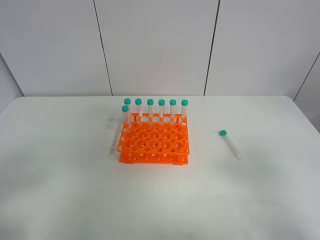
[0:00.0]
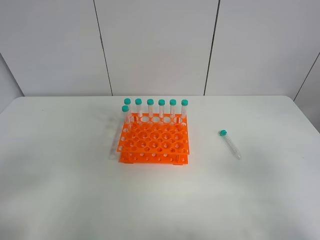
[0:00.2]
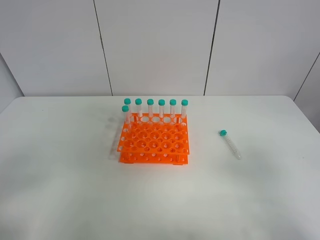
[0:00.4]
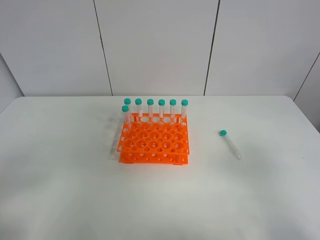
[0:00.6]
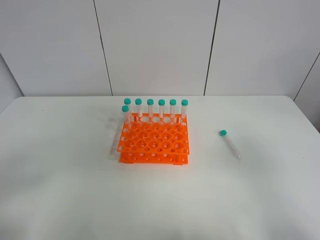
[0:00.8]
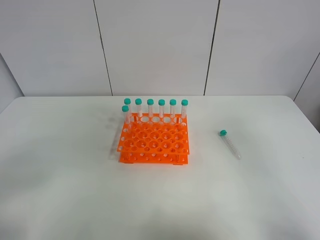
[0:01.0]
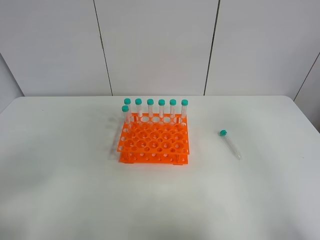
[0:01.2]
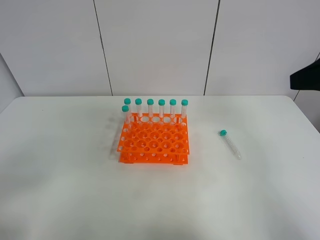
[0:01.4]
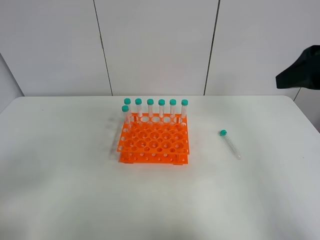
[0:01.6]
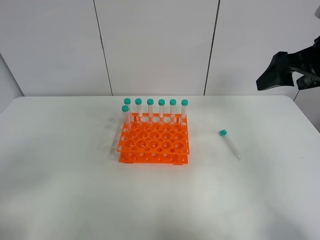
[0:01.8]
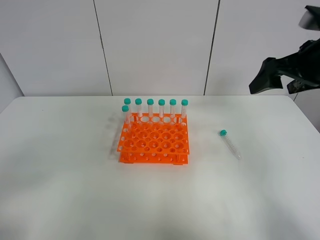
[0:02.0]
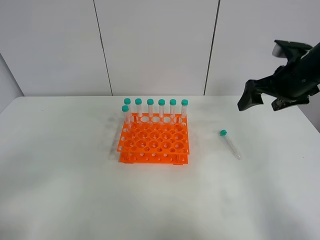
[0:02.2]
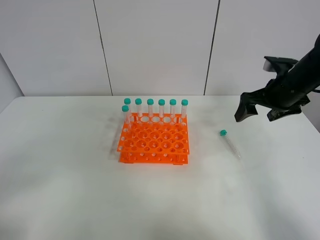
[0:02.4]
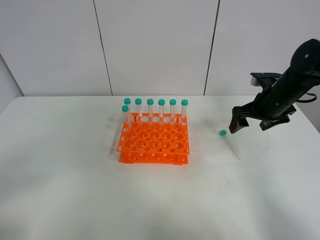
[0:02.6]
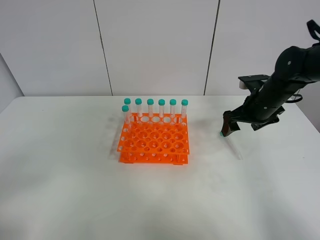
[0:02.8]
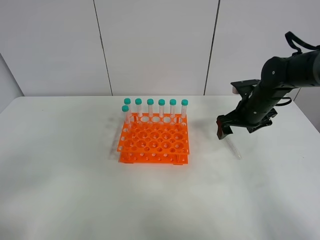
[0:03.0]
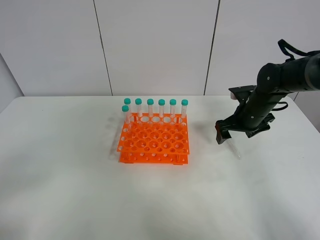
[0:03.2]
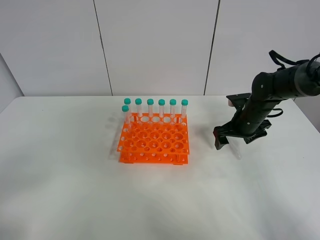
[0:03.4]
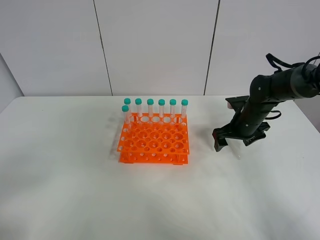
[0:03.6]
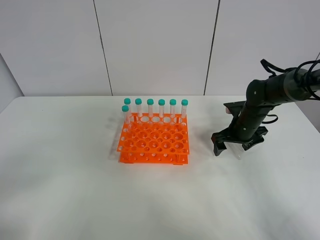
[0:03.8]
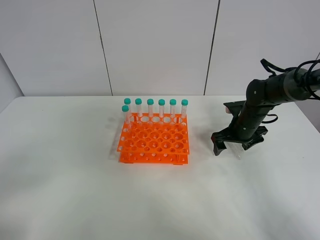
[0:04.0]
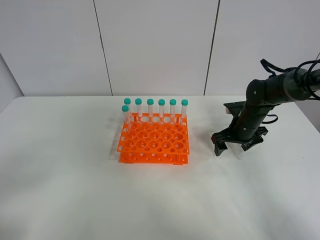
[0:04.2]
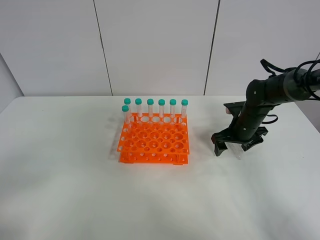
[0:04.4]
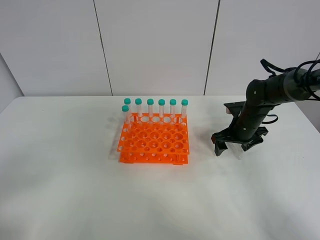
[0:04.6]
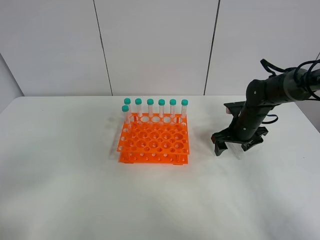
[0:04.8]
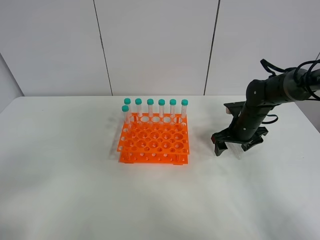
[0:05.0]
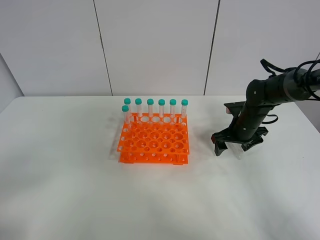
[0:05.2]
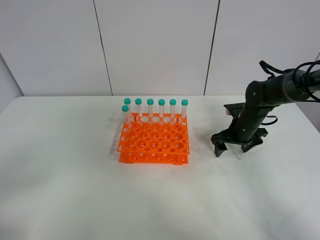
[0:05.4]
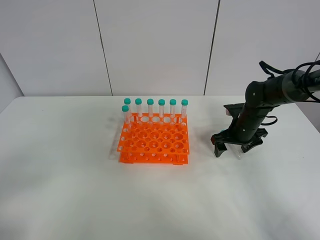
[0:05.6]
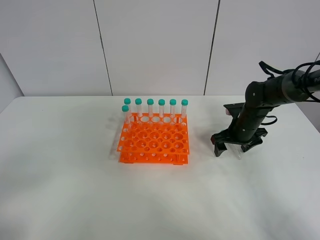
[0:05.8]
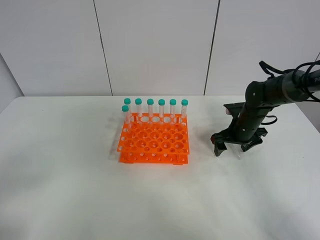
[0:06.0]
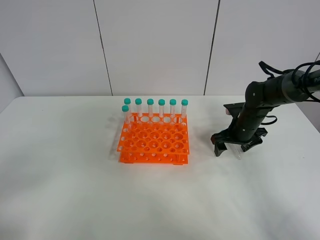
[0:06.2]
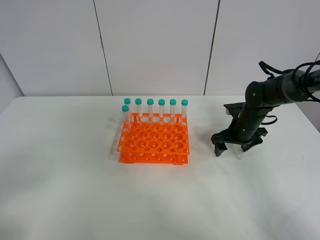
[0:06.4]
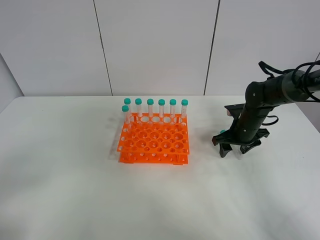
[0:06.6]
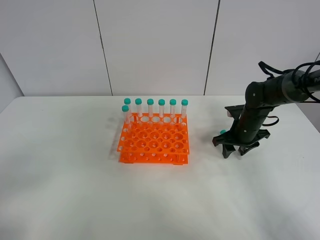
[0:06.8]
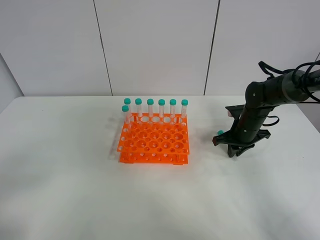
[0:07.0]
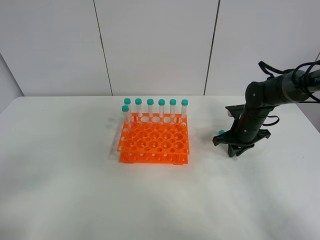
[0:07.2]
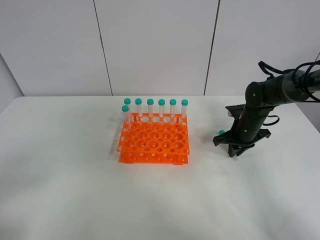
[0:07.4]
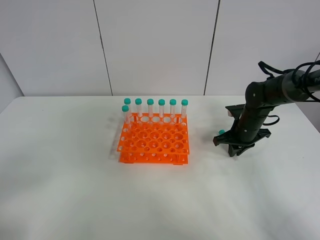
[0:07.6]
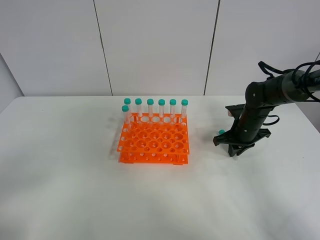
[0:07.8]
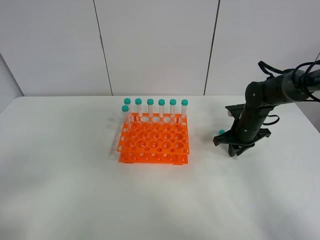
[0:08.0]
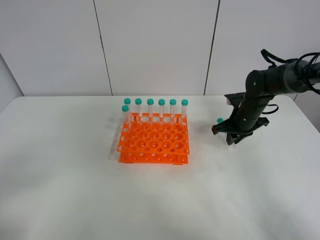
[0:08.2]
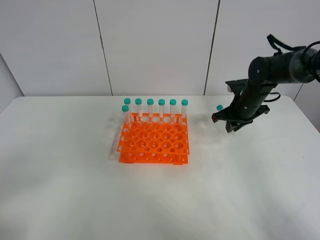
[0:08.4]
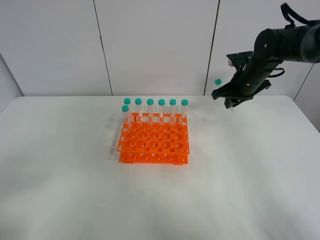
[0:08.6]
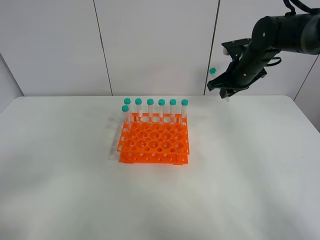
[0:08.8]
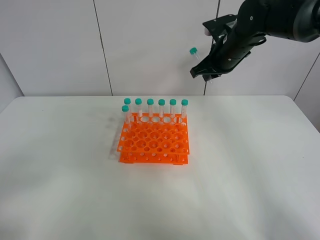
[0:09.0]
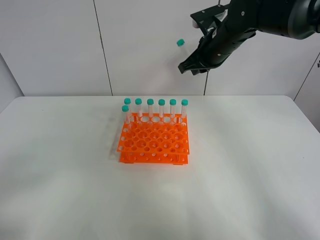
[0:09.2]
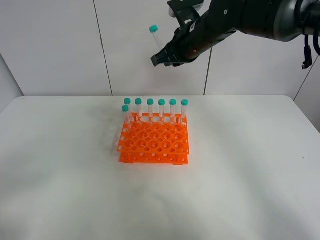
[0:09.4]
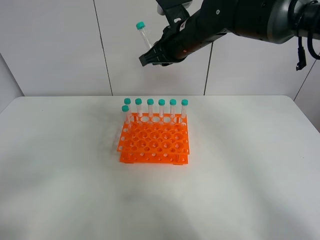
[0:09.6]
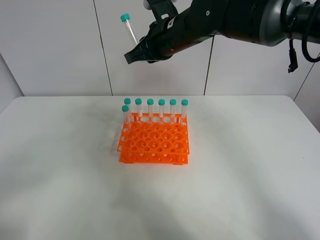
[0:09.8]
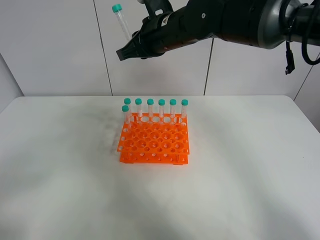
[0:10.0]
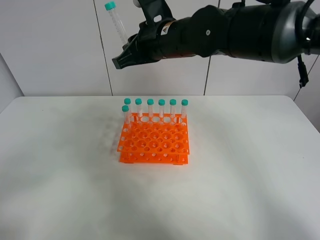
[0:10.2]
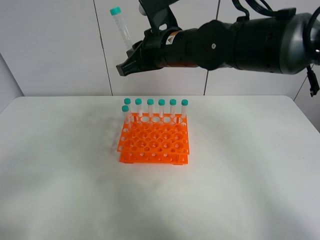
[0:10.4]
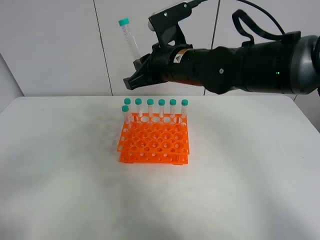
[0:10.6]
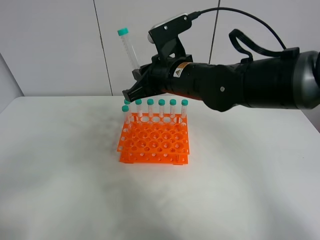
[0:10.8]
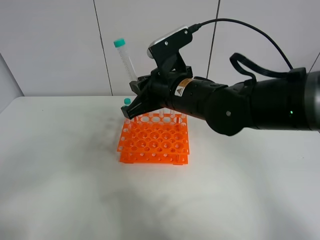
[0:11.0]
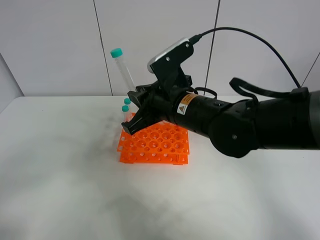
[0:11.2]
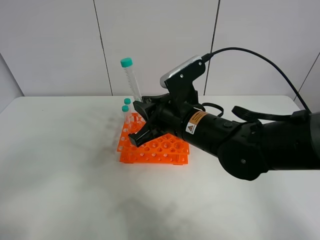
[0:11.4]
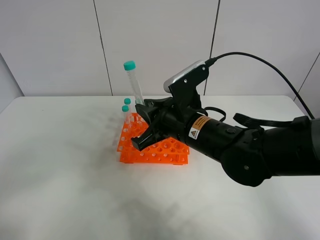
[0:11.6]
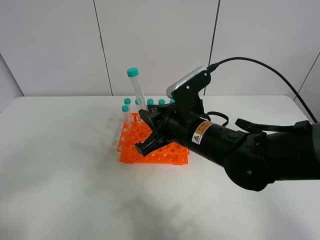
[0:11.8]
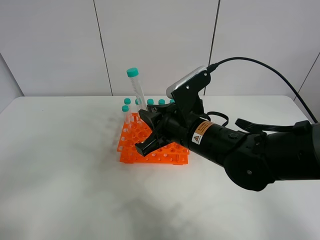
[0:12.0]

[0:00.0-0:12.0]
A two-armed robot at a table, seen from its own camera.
Task of the whole recording: Put the test tube on the table back onto the test tube rack.
Step, 0:00.0 to 0:07.2: Pick up the test tube with the right gripper.
0:00.0 to 0:01.6: The right gripper moves forward and upward, some 25 cm.
0:01.6 to 0:03.0: The right gripper travels downward and forward by about 25 cm.
0:03.0 to 0:04.4: The right gripper shifts about 5 cm downward.
0:04.4 to 0:06.0: Neither gripper changes place.
0:06.0 to 0:07.6: The right gripper closes.
0:07.6 to 0:09.0: The right gripper is displaced upward and to the left by approximately 20 cm.
0:09.0 to 0:10.4: The right gripper heads to the left and backward, covering about 15 cm.
0:10.4 to 0:12.0: The right gripper heads backward and downward, covering roughly 15 cm.

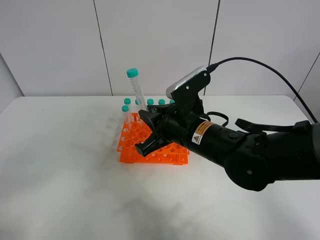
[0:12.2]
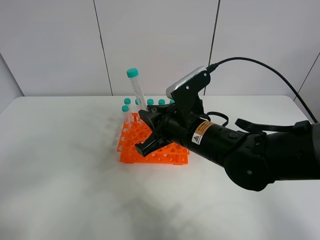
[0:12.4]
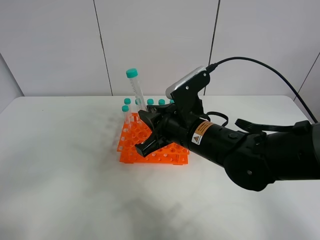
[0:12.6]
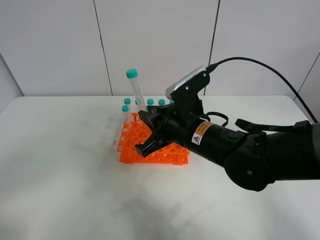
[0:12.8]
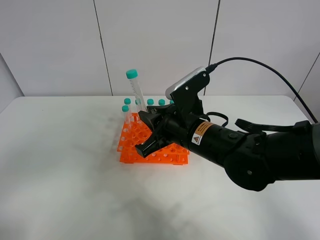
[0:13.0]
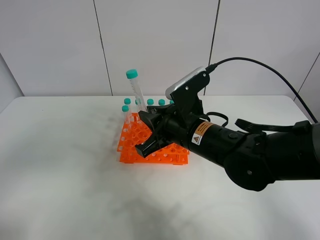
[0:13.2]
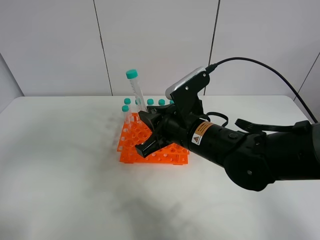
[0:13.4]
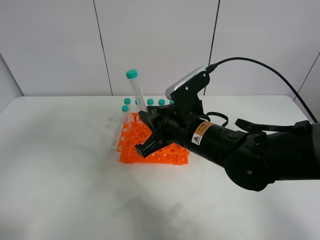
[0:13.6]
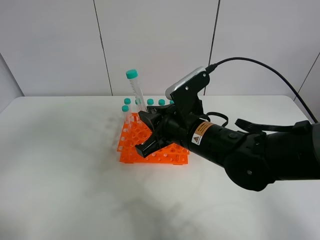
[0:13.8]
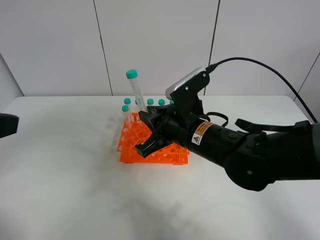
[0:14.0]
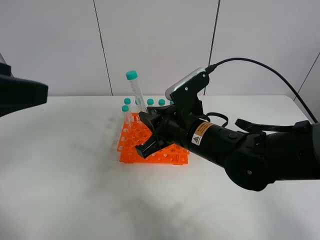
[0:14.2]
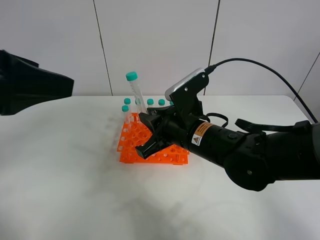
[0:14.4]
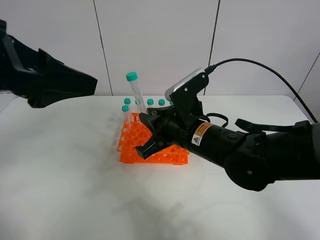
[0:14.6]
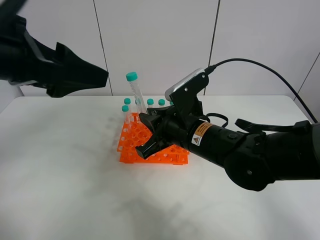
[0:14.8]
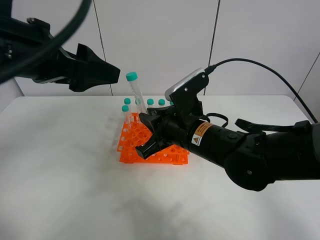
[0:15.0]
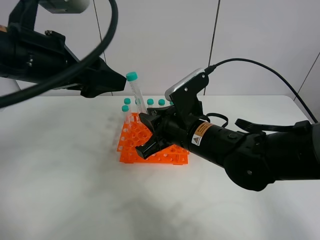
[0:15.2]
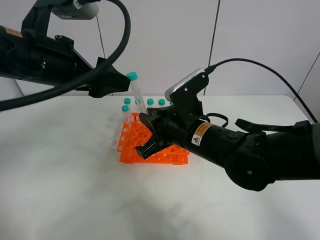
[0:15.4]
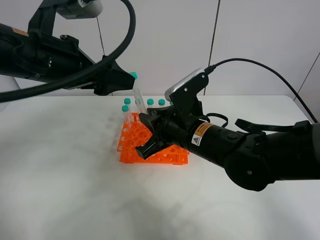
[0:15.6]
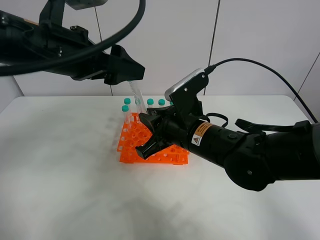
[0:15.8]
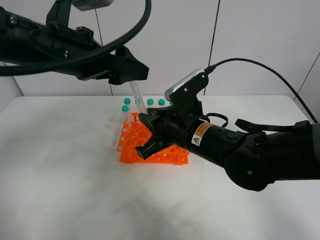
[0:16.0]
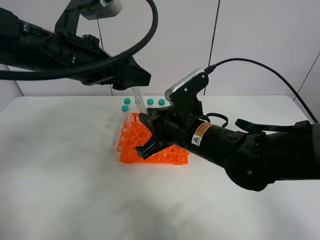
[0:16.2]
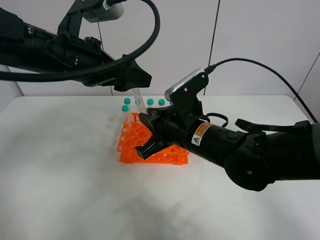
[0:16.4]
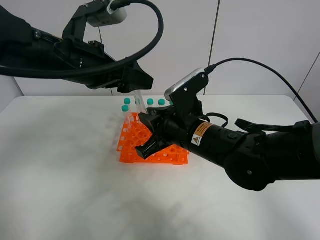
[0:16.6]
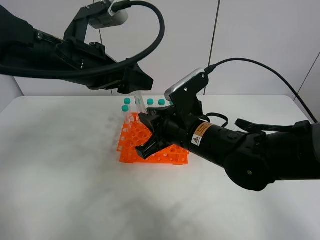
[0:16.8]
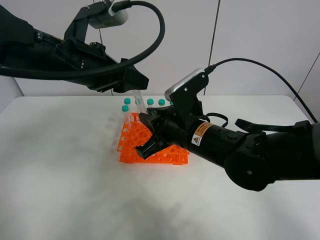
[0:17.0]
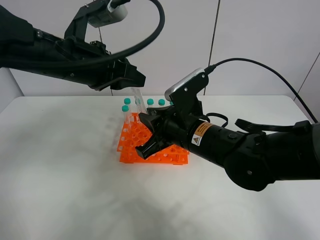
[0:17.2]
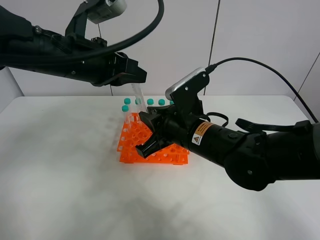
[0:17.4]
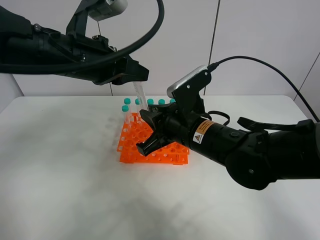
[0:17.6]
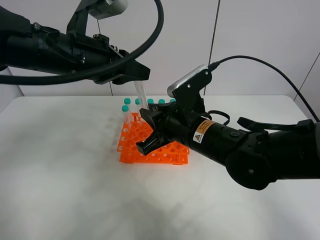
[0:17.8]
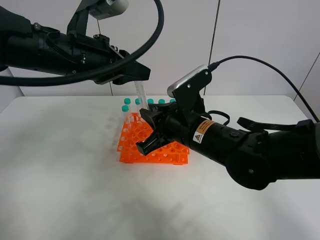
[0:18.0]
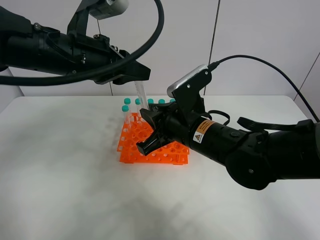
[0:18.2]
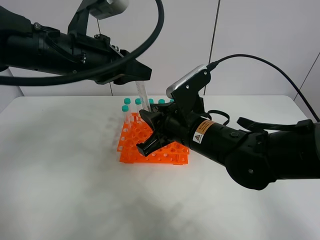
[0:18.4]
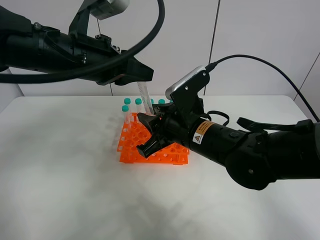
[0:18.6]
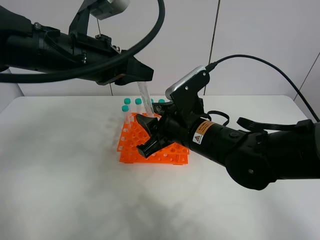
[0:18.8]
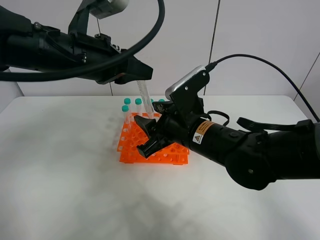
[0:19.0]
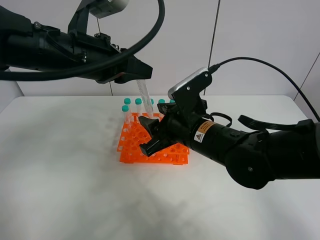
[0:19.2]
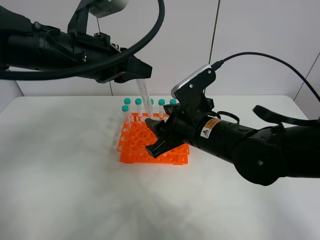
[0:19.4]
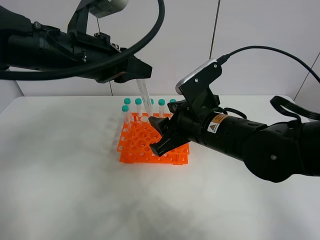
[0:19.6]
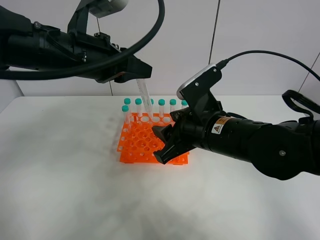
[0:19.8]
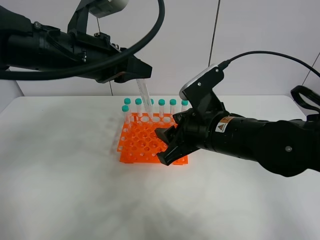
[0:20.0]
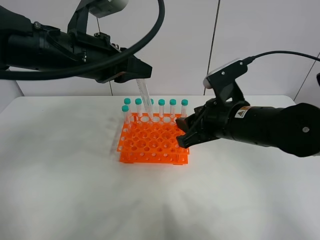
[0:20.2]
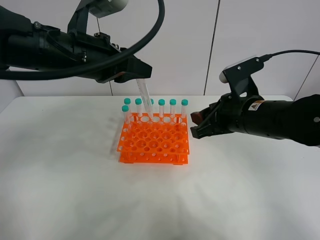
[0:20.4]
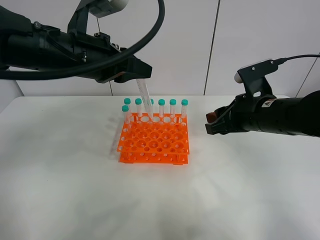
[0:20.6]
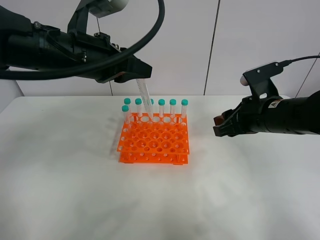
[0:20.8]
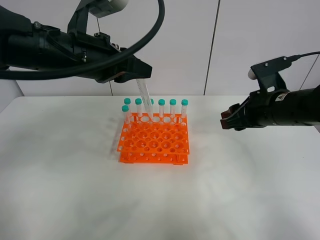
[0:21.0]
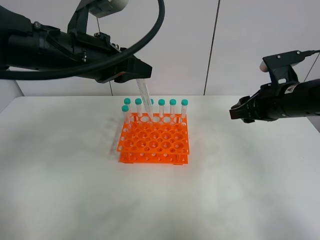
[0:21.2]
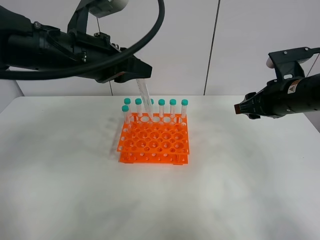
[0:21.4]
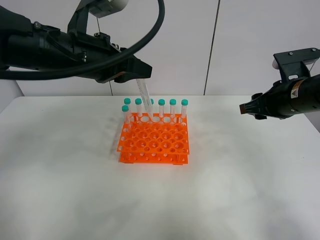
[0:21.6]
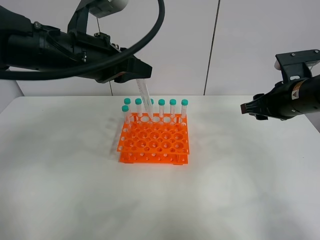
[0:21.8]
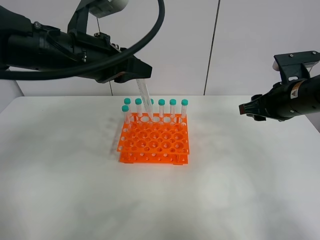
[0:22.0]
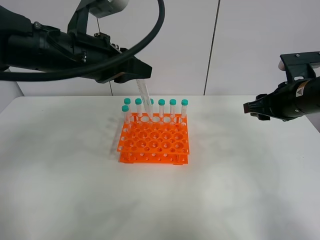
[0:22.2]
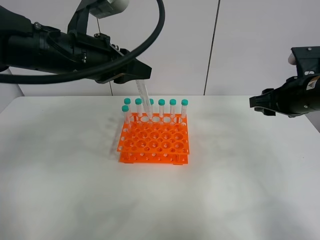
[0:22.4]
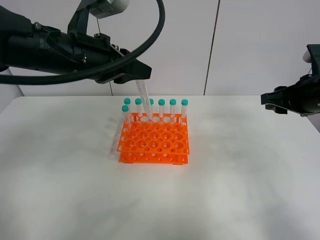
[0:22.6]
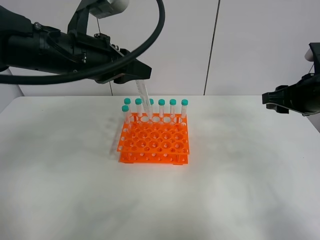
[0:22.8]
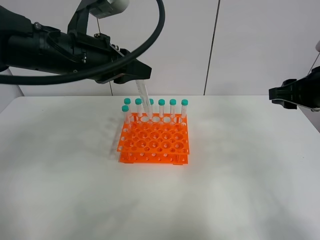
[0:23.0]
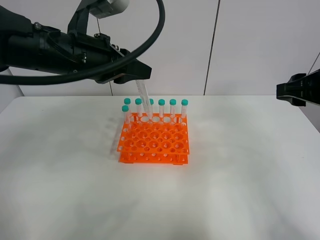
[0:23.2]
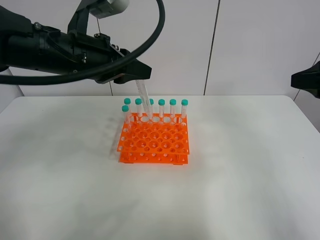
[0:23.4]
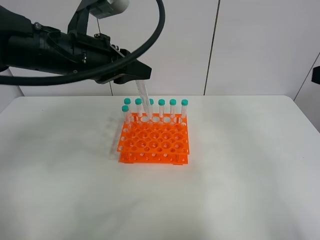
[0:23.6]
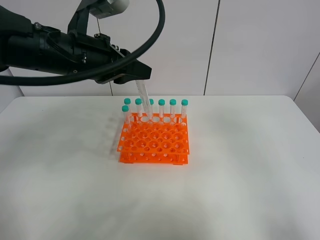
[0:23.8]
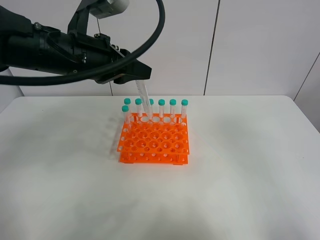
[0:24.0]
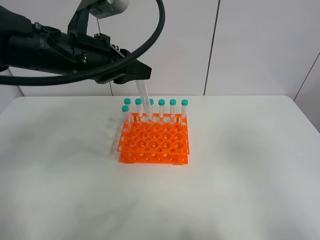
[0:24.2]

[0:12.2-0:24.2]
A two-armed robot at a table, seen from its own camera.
Task of the whole recording: Put the test tube on the table back onto the test tube rack.
Step, 0:12.2 to 0:18.8: Move the test tube from the right gripper to the left gripper.
0:12.2 to 0:13.8: The left gripper travels forward and upward by roughly 15 cm.
0:13.8 to 0:15.2: The left gripper heads forward and to the right, covering approximately 20 cm.
0:15.2 to 0:16.6: The left gripper shifts roughly 5 cm forward.
0:16.6 to 0:18.2: The left gripper closes.
0:18.2 to 0:19.8: The right gripper opens.
0:19.8 to 0:21.2: The right gripper travels to the right and forward by roughly 15 cm.
0:21.2 to 0:22.6: The right gripper ends up approximately 5 cm from where it was.
0:22.6 to 0:24.2: The right gripper goes approximately 25 cm backward.
